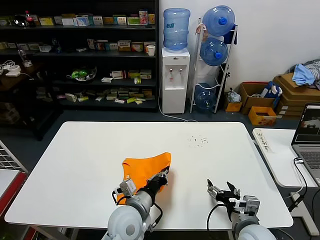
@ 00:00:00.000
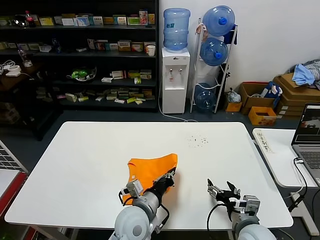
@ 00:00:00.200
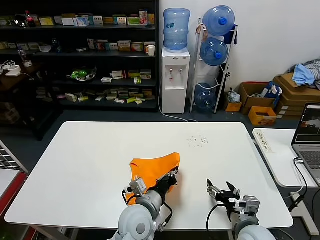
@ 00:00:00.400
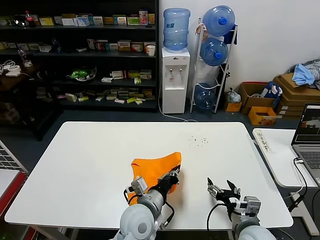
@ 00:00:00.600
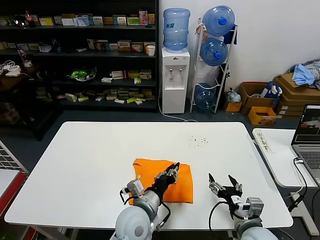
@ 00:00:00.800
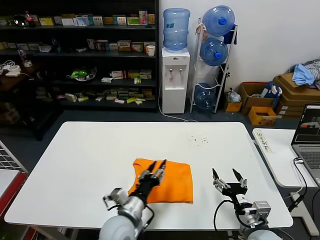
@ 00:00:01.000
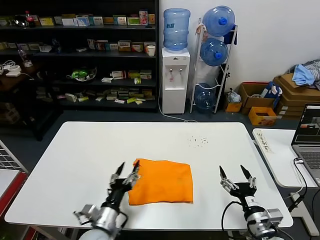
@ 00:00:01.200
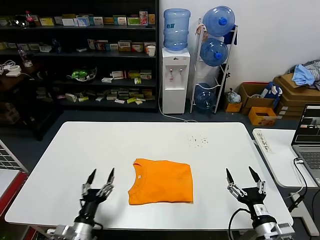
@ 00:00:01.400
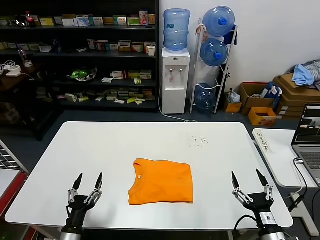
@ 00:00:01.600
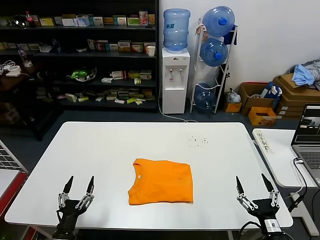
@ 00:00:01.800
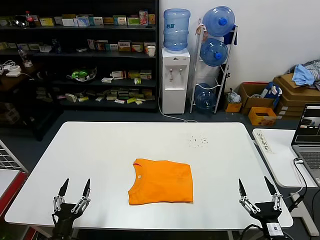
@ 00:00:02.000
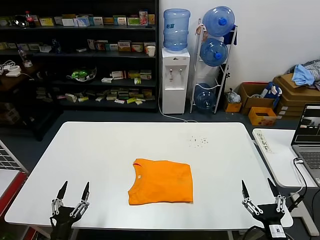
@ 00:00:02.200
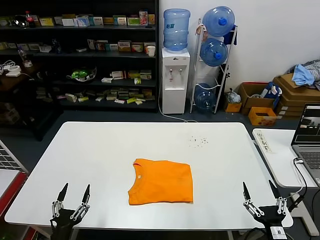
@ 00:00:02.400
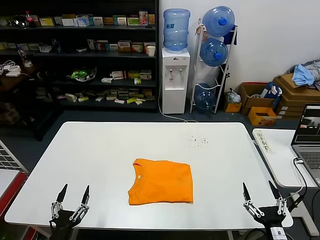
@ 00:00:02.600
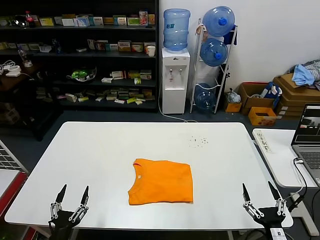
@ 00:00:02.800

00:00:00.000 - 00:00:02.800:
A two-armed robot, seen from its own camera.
Task of the whole recording: fold and organize the clothes.
00:00:00.000 - 00:00:01.400: The right gripper shifts some 5 cm to the right, while the left gripper shifts about 20 cm to the left, downward and backward, and opens its fingers.
00:00:01.400 - 00:00:02.800: The left gripper is displaced to the left and backward by about 10 cm. The right gripper shifts approximately 5 cm backward.
